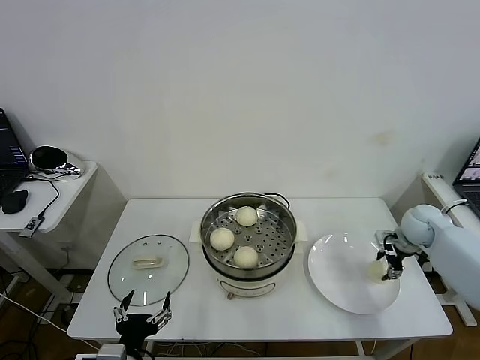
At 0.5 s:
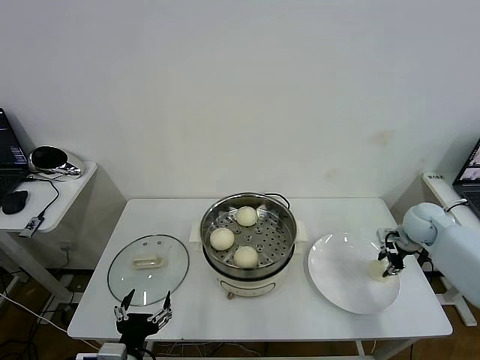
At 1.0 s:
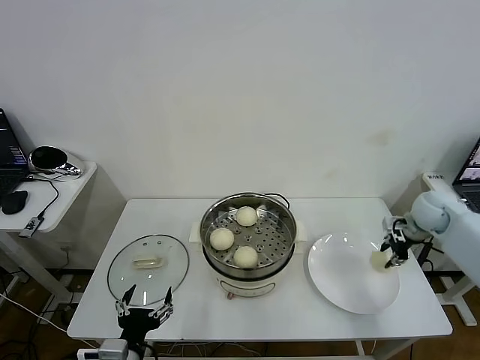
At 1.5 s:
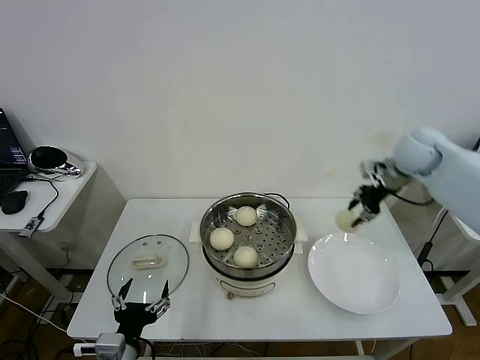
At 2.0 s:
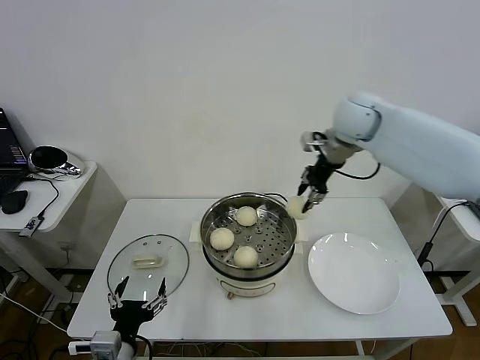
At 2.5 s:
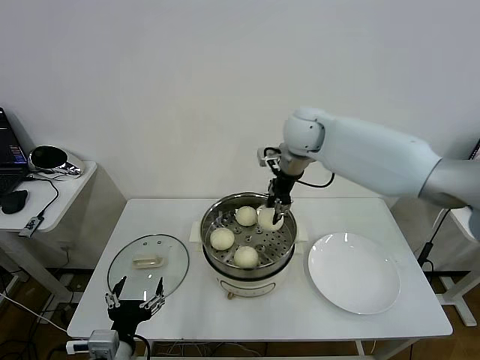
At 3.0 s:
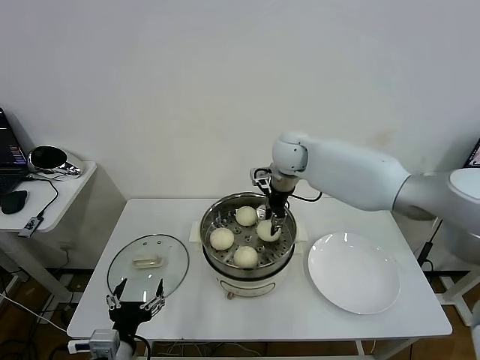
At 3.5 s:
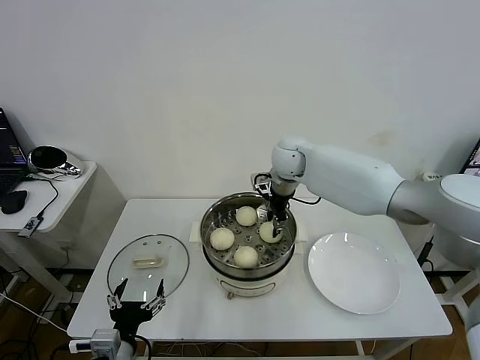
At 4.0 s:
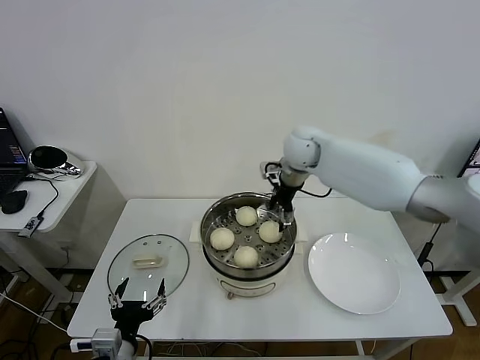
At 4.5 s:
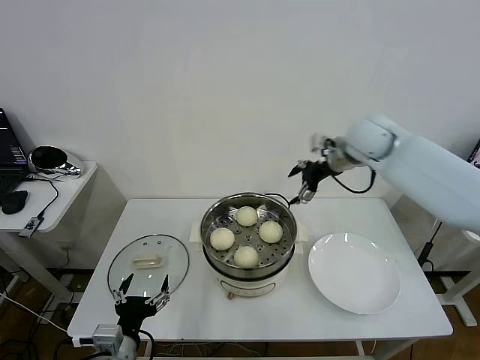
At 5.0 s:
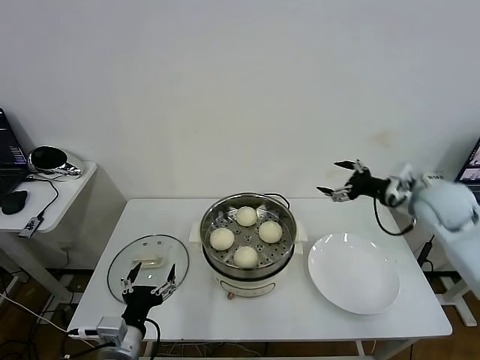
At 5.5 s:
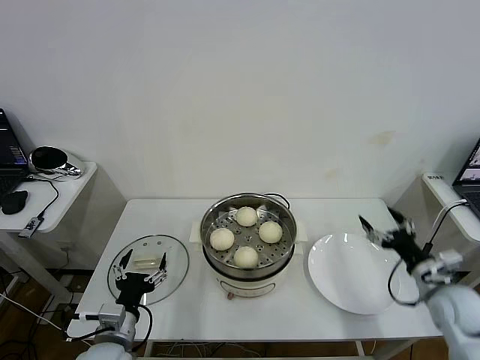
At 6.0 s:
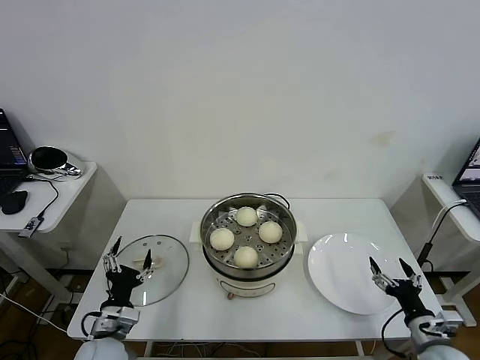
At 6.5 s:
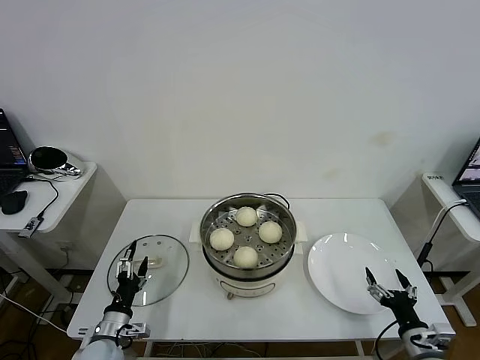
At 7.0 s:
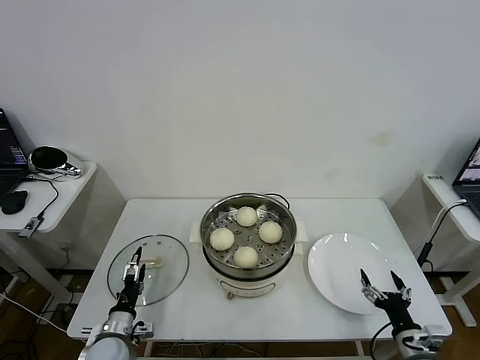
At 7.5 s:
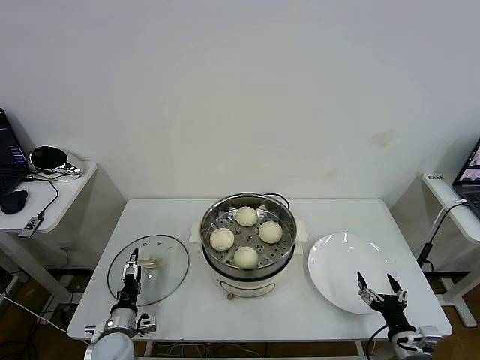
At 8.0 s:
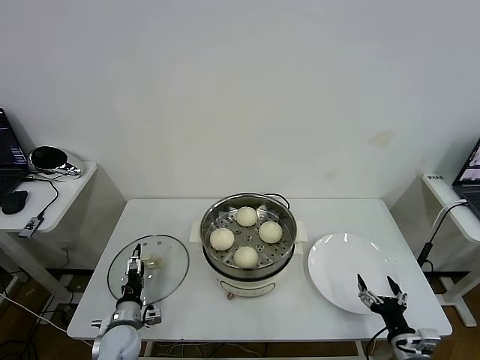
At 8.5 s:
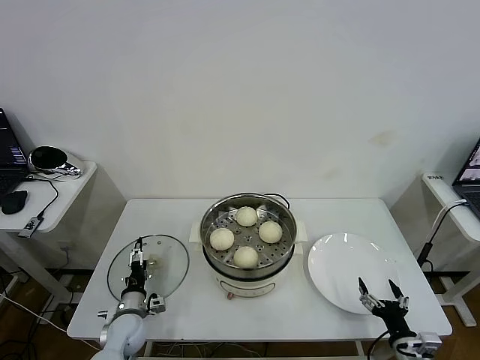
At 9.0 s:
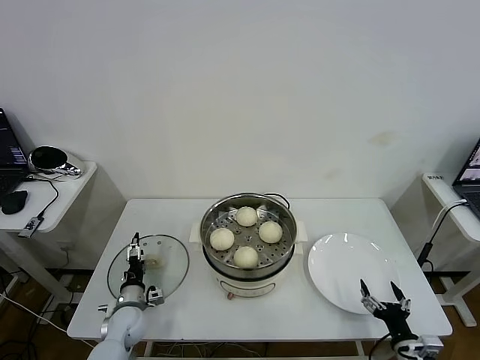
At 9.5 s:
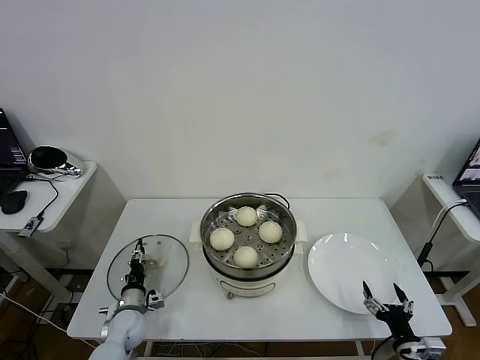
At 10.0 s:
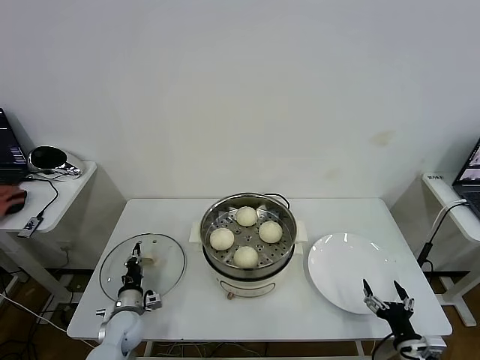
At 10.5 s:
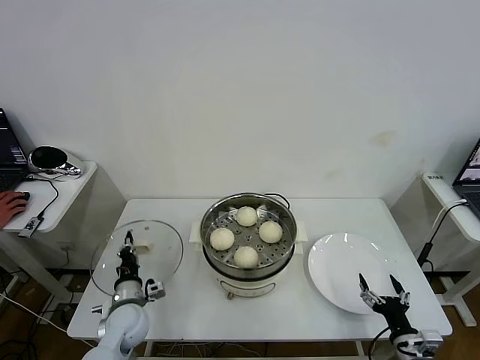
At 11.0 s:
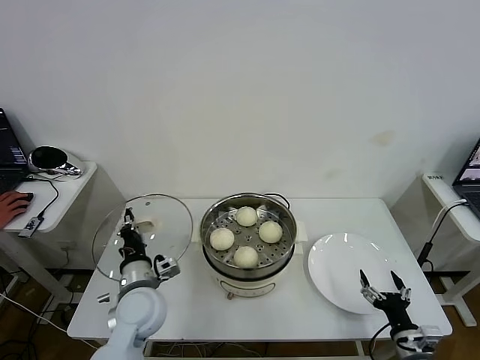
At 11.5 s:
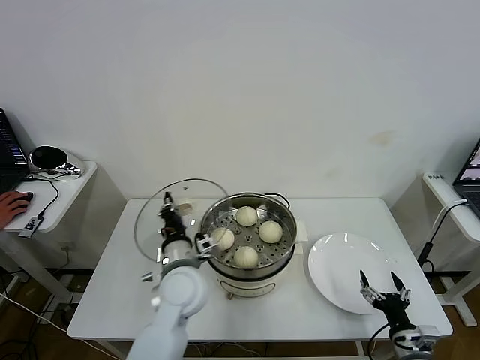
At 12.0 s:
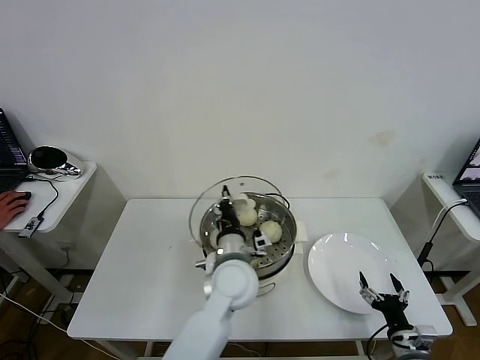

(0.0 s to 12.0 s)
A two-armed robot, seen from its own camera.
Task of the whole recording: take steamed baozi put them in steamer then cover it.
Step, 0.5 s - 3.5 s: Place the baozi on the steamer with right gripper.
Step, 4.0 s - 10.0 s: Grasp the pot lid with left gripper.
0.0 s - 2.0 s: The right gripper travels upward and to the left by some 35 cm, and closes its fingers.
2.0 s - 4.0 s: The right gripper goes approximately 10 cm downward and to the left, and opens.
4.0 s - 6.0 s: The left gripper heads forward, downward and to the left, covering approximately 10 cm. The right gripper is displaced backward, downward and to the right by some 50 cm.
6.0 s - 8.0 s: The left gripper goes approximately 10 cm downward and forward, while the right gripper ends up some 5 cm from where it was.
8.0 s - 10.0 s: The left gripper closes.
10.0 s - 12.0 s: The left gripper shifts approximately 35 cm to the right and upward.

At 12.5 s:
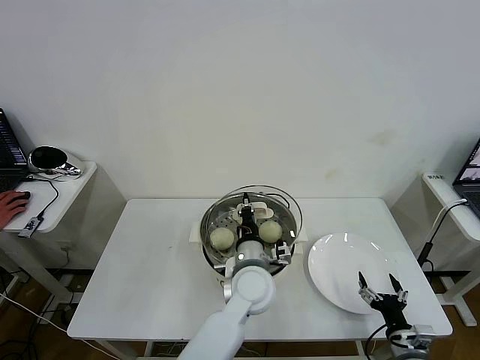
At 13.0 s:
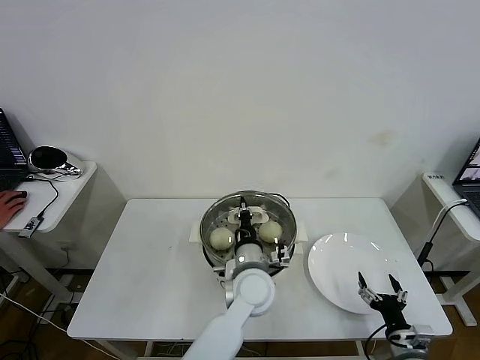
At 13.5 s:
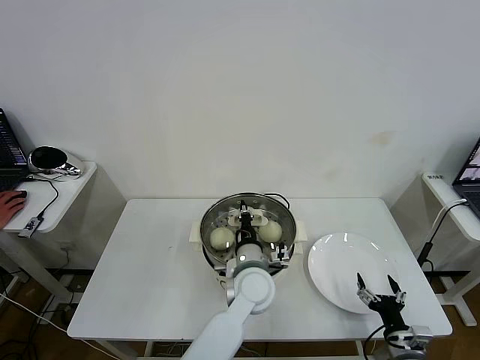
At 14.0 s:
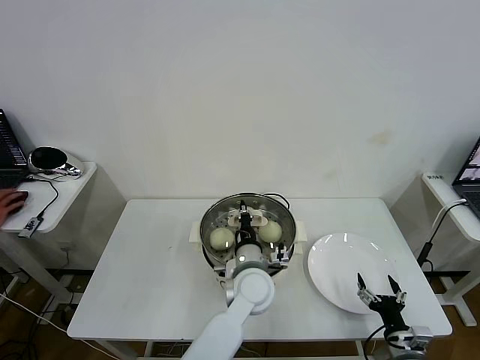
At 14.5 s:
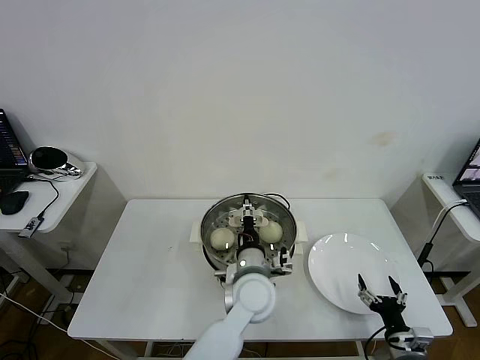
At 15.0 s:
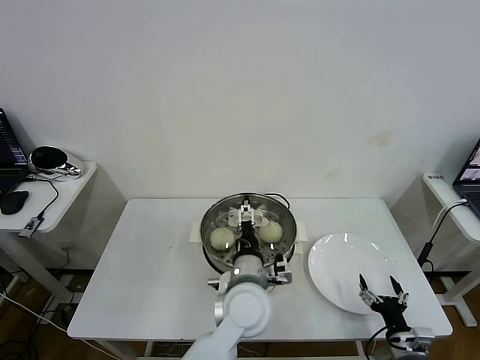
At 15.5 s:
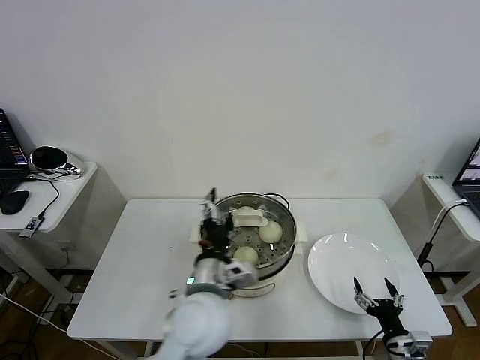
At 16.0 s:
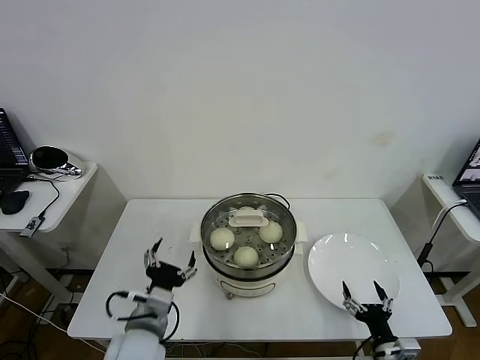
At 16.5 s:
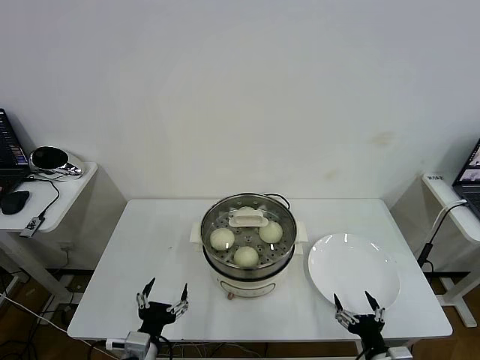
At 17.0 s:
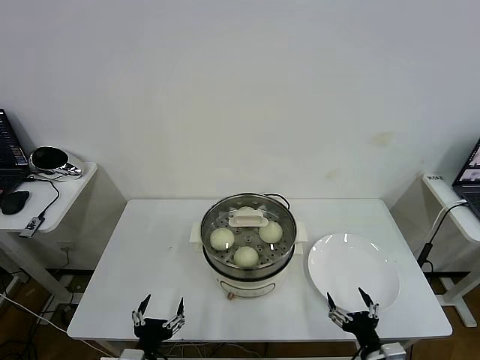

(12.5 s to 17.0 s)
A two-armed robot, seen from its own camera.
Task of the whole recording: take steamed baozi put them in steamer then cover it.
Step, 12.5 s - 14.5 s: Place the pot lid on the steamer with left gripper.
12.5 s - 14.5 s: The left gripper opens its fingers.
14.5 s - 17.0 s: The right gripper shifts roughly 5 cm to the left, while the left gripper heads to the left and backward, covering roughly 30 cm, and opens its fingers.
